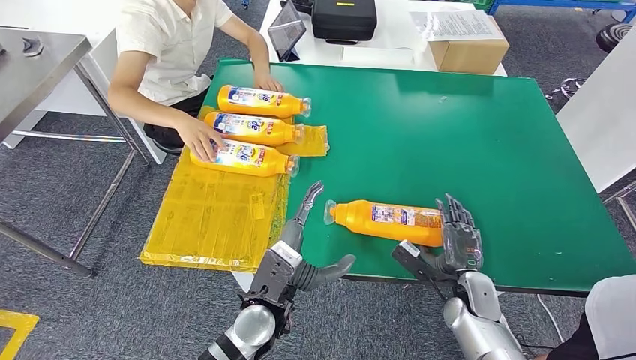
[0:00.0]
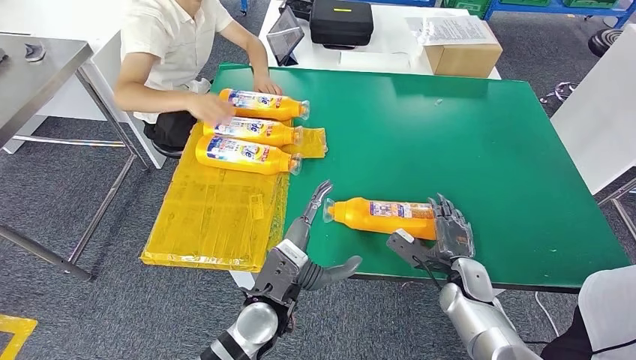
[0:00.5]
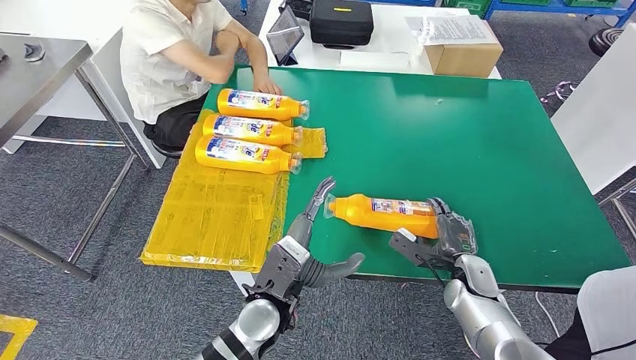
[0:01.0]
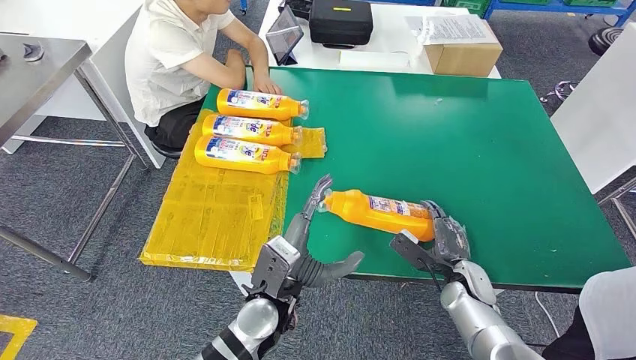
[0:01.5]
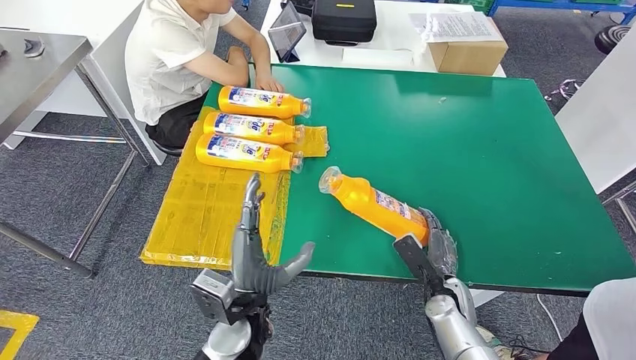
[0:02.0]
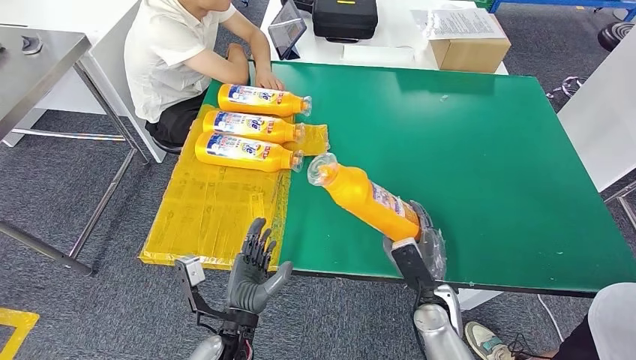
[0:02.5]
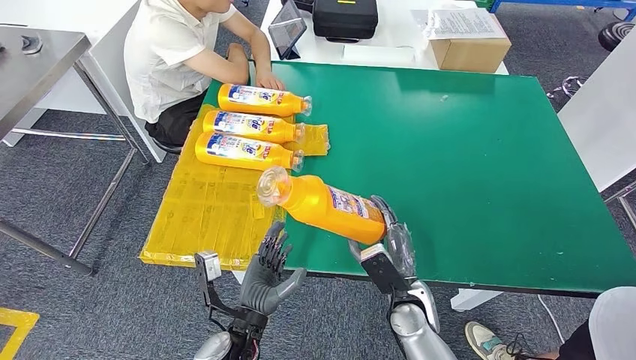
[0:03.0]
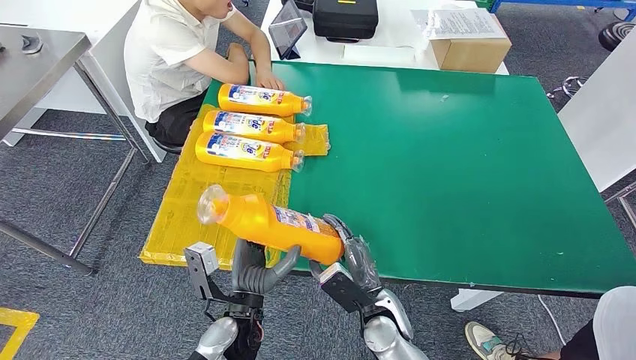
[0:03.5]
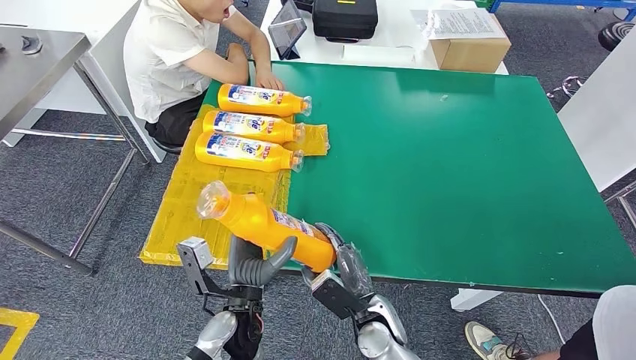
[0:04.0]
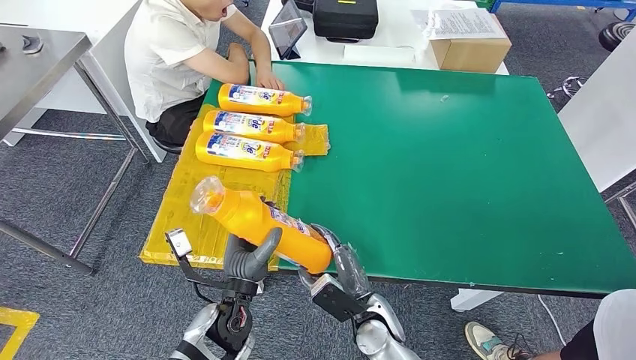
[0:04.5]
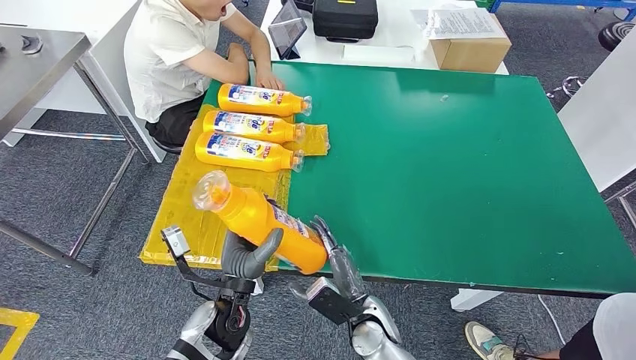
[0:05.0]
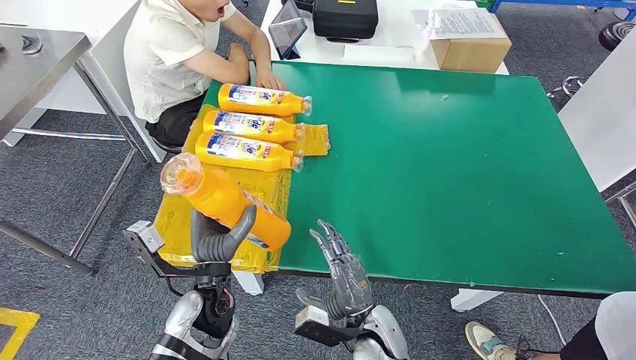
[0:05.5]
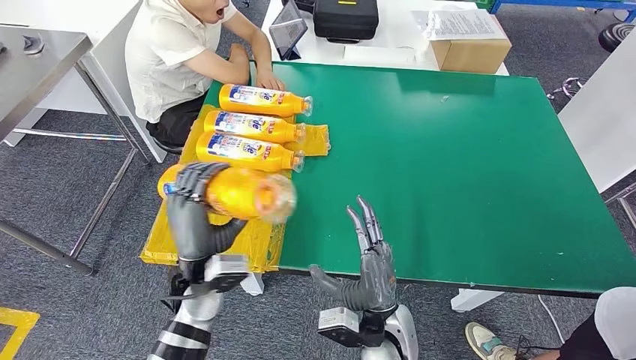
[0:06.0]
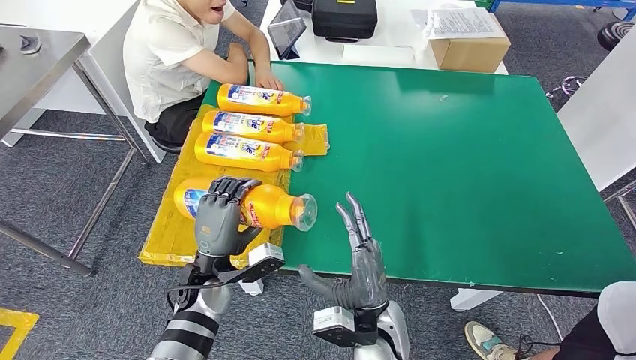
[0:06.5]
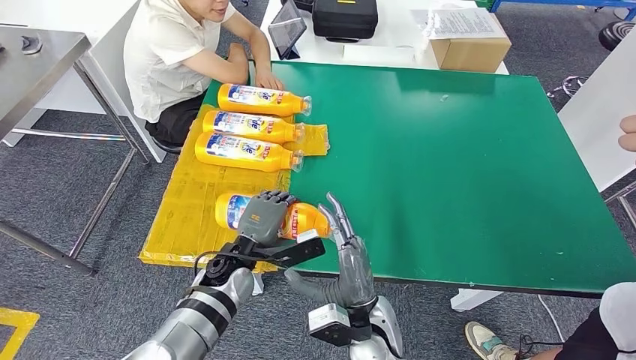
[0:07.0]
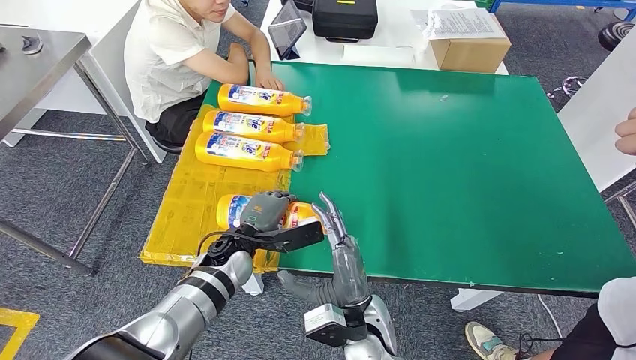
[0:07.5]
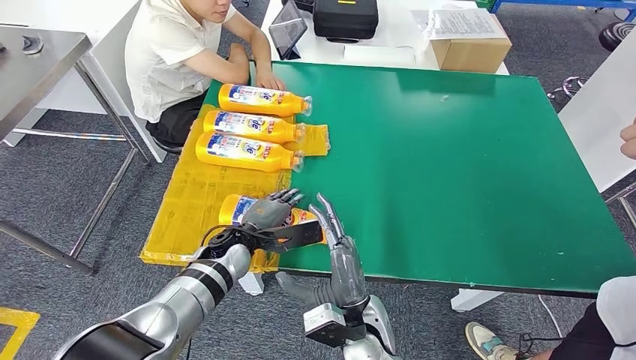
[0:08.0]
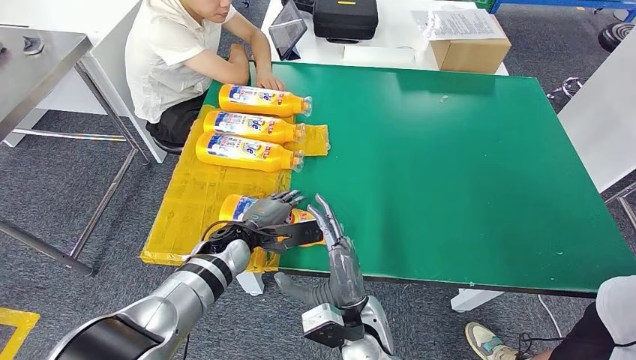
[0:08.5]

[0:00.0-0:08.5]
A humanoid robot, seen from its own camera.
Step, 0:00.0 to 0:04.0: Pick up the fast-moving consumer goods bottle from the table.
Step, 0:05.0 to 0:08.5: Flip the fast-moving consumer goods bottle to the front side.
0:02.0 to 0:04.0: The right hand is displaced to the left by some 15 cm.
0:04.0 to 0:06.5: The left hand moves to the left and forward, approximately 10 cm. Meanwhile the right hand is displaced upward by some 5 cm.
0:06.5 to 0:08.5: The left hand moves forward, approximately 5 cm.

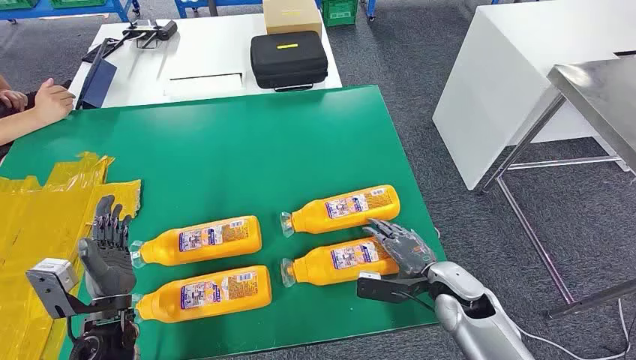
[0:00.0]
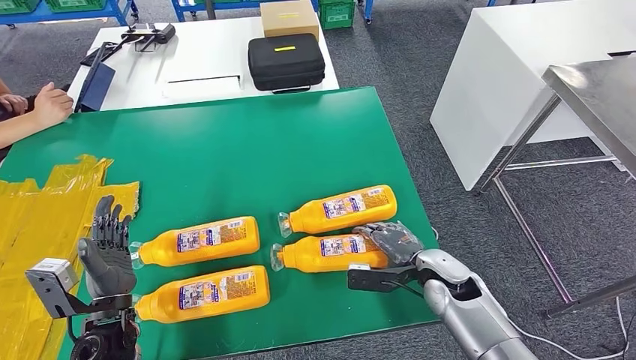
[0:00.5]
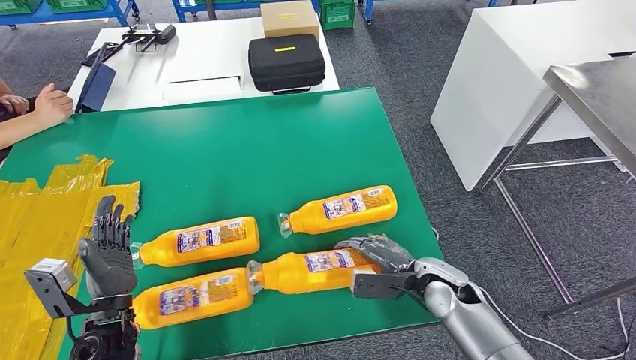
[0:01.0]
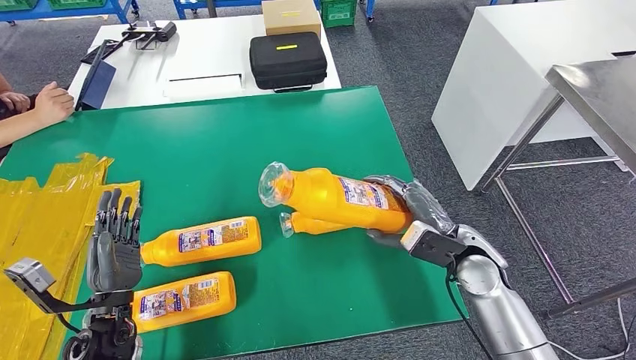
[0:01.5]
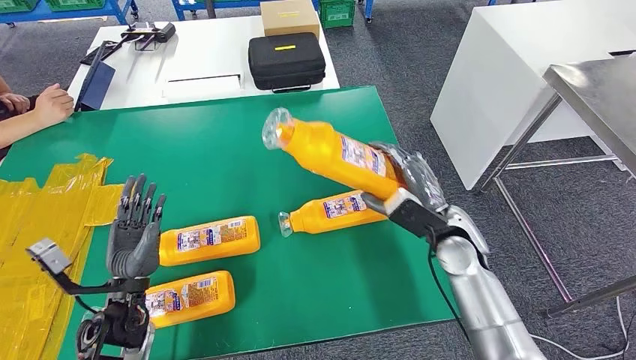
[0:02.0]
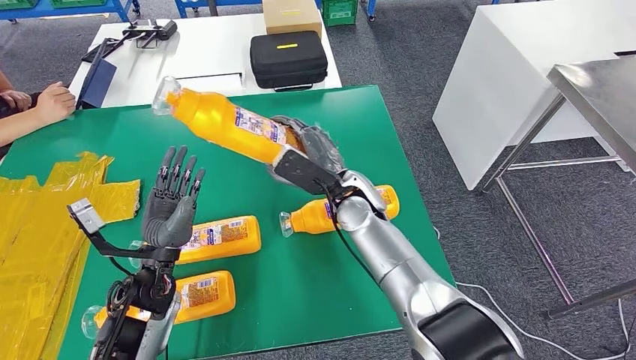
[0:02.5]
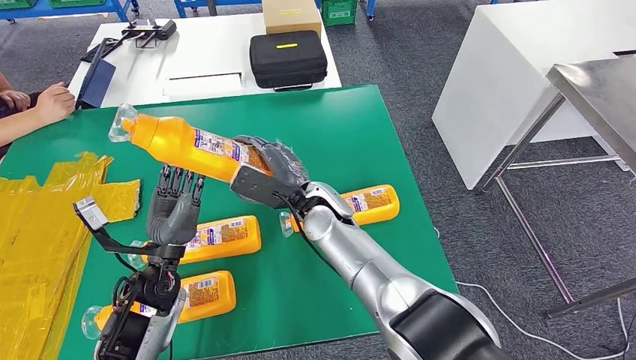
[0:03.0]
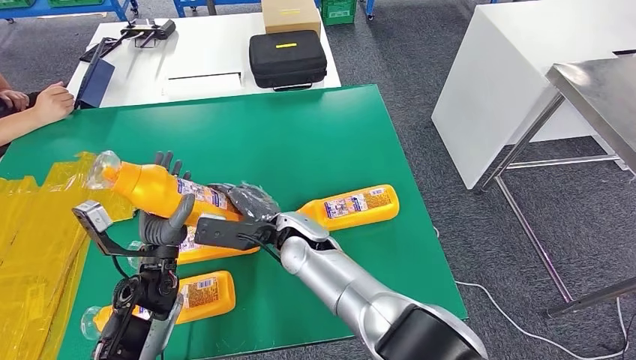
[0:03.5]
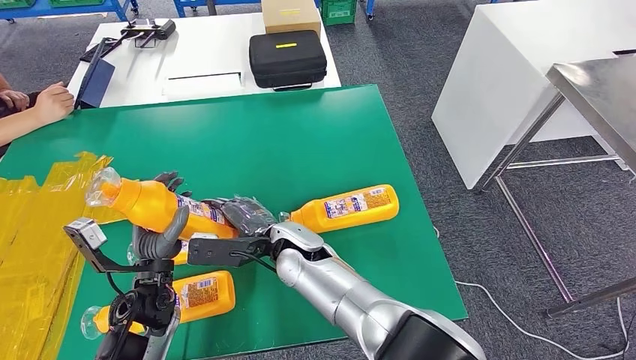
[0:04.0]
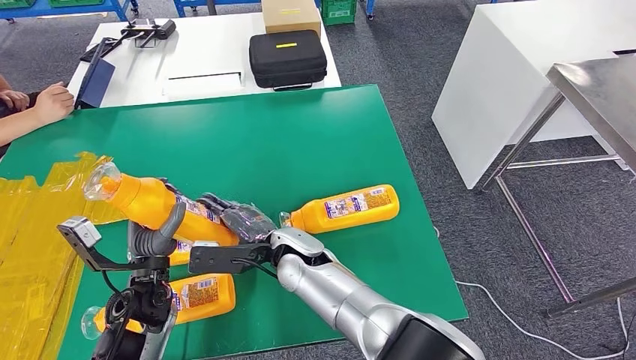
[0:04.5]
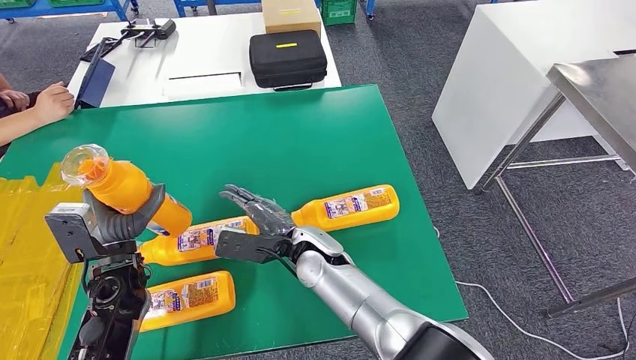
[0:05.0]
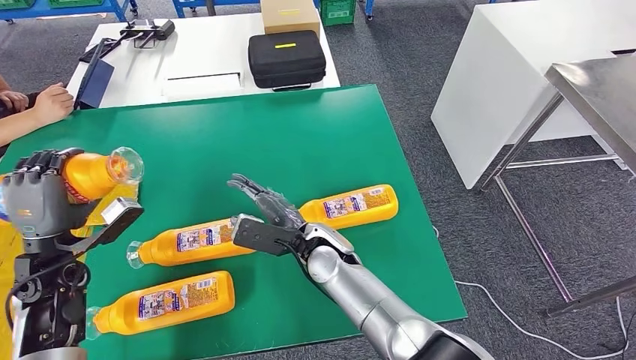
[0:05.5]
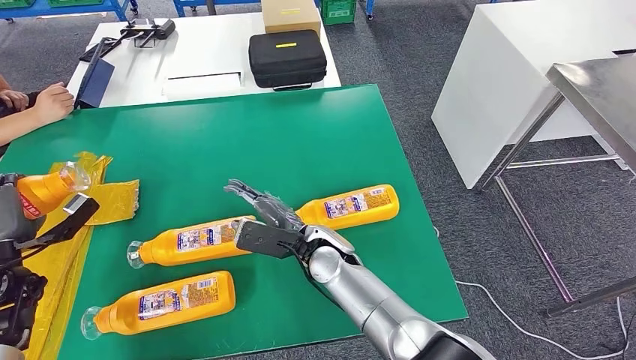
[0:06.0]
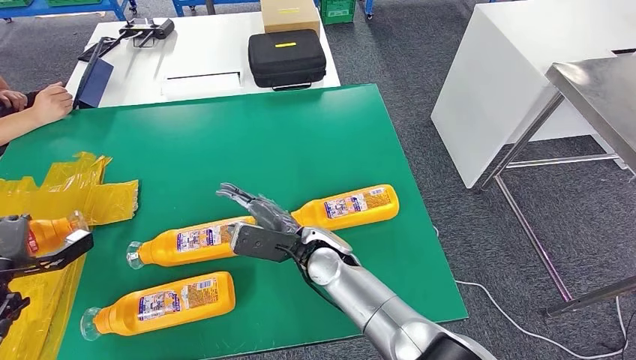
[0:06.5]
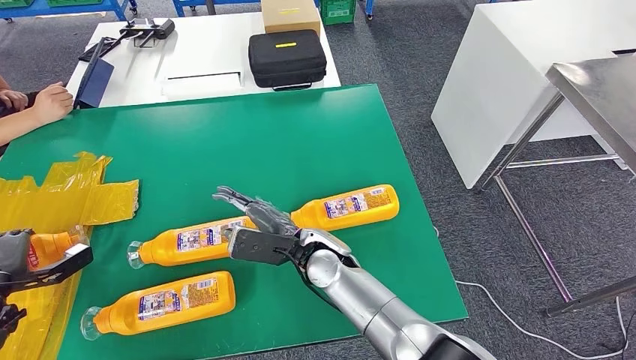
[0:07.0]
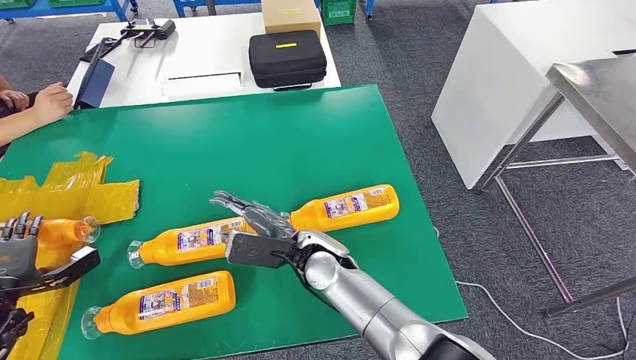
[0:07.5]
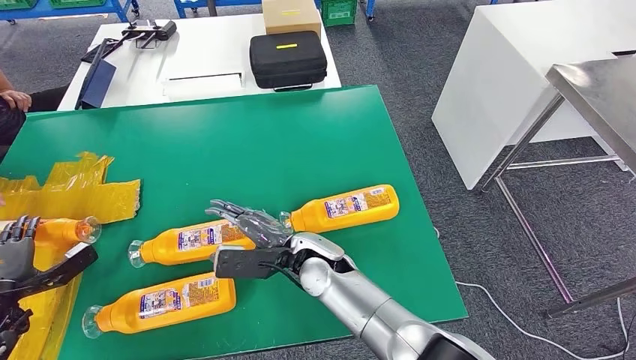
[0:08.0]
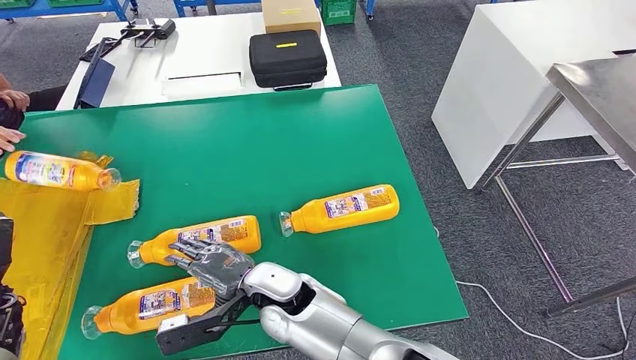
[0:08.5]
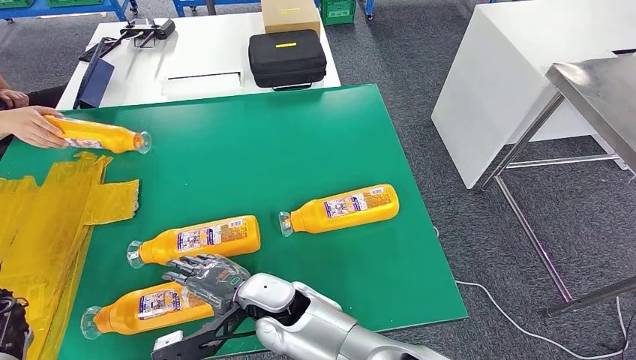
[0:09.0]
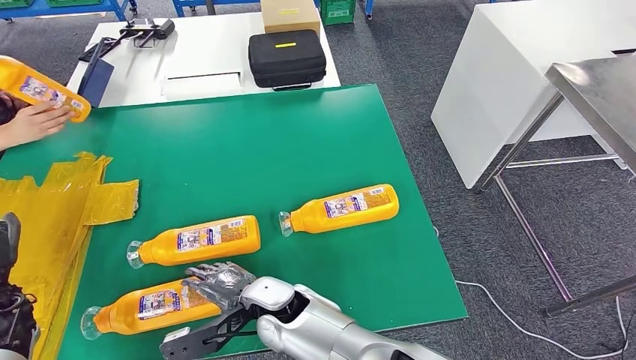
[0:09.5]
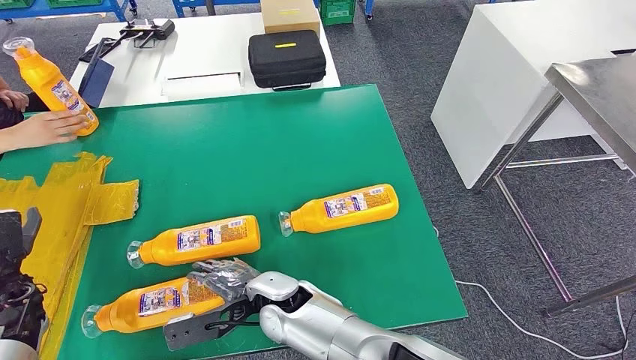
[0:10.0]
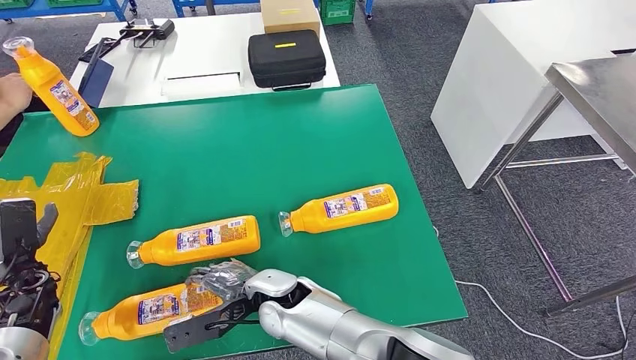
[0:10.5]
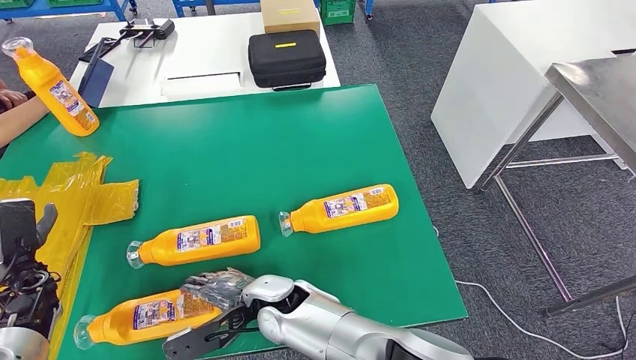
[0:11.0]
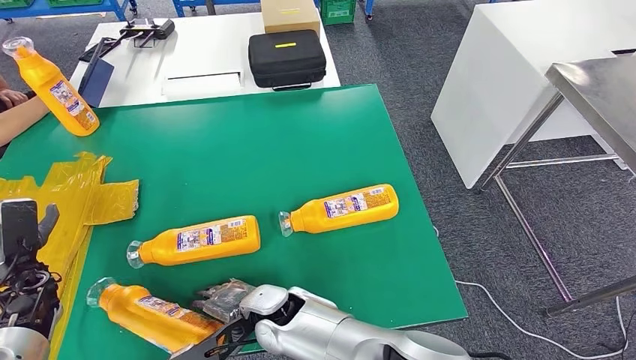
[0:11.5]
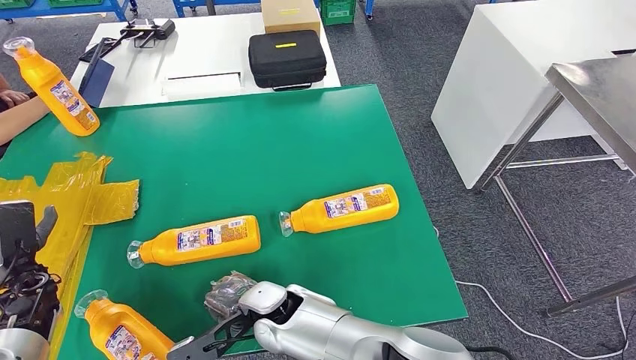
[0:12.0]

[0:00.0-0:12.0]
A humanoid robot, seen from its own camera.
Step, 0:00.0 to 0:02.5: Take the fast-moving consumer goods bottle from the table.
Step, 0:03.0 to 0:07.0: Flip the fast-moving consumer goods bottle to the front side.
0:04.0 to 0:06.0: The right hand heads to the right, covering some 5 cm; the left hand shifts approximately 25 cm to the left.
0:06.0 to 0:08.0: The left hand moves downward and to the left, approximately 10 cm.
0:08.0 to 0:10.0: The right hand goes some 10 cm to the left and backward.
0:10.0 to 0:12.0: The hands stay close to where they were, moving slightly.
